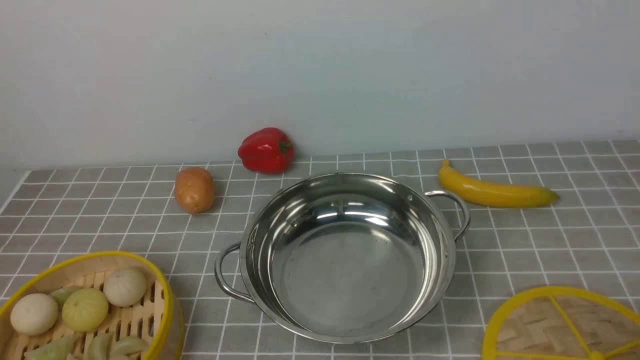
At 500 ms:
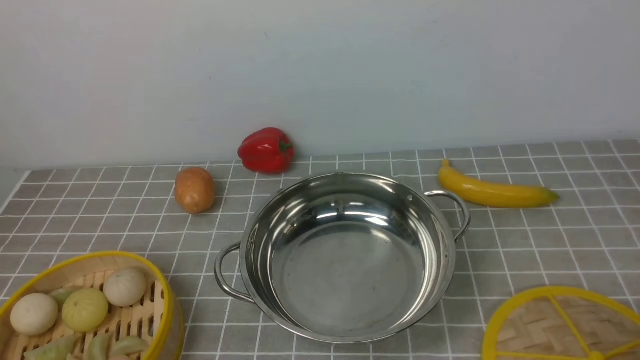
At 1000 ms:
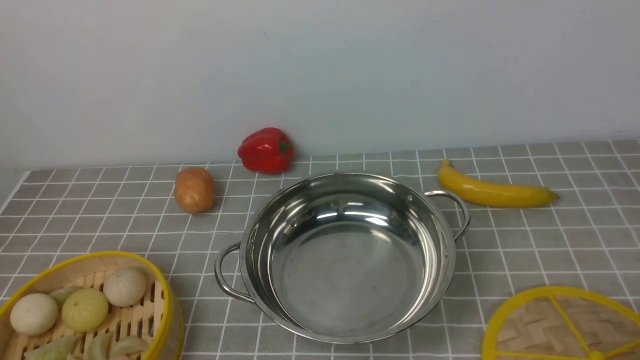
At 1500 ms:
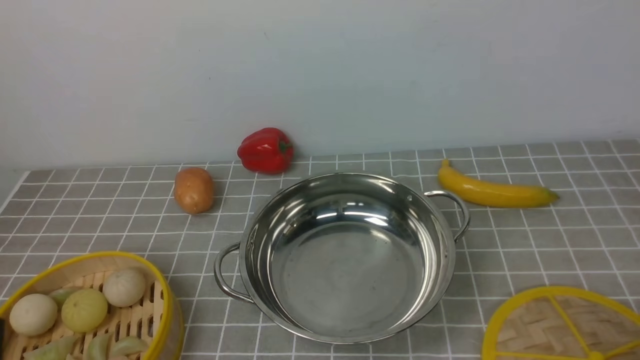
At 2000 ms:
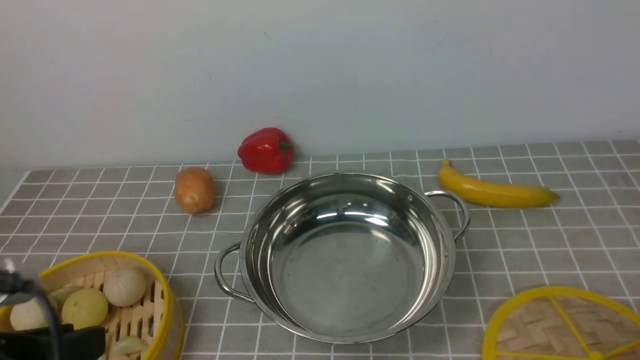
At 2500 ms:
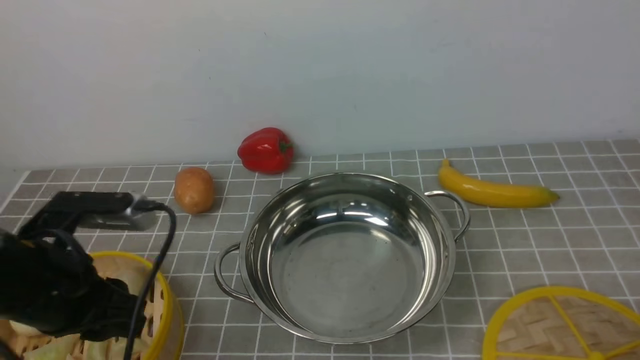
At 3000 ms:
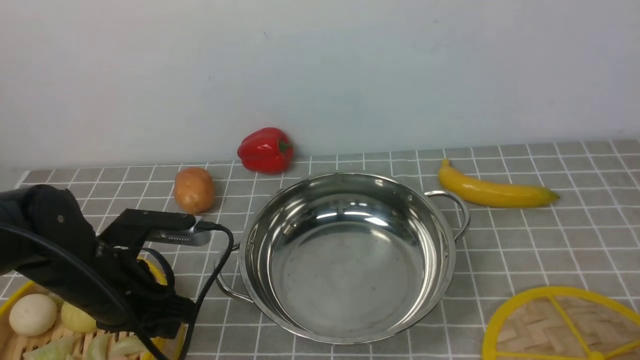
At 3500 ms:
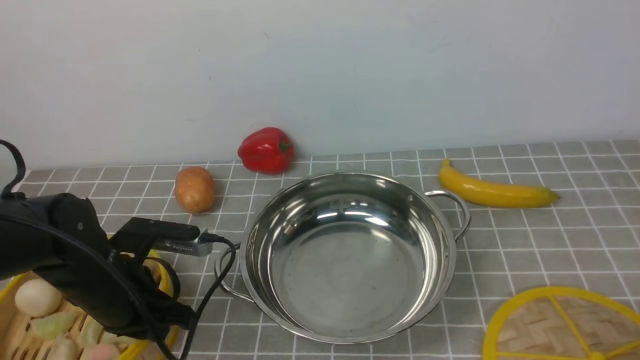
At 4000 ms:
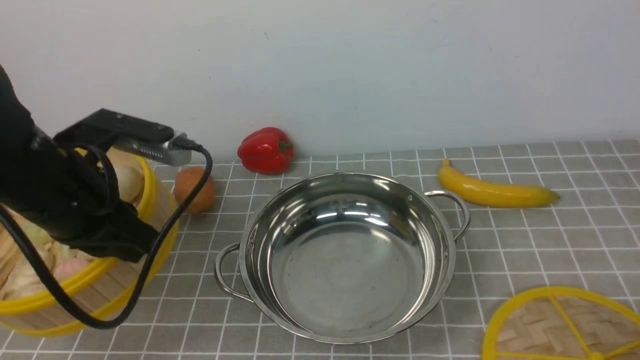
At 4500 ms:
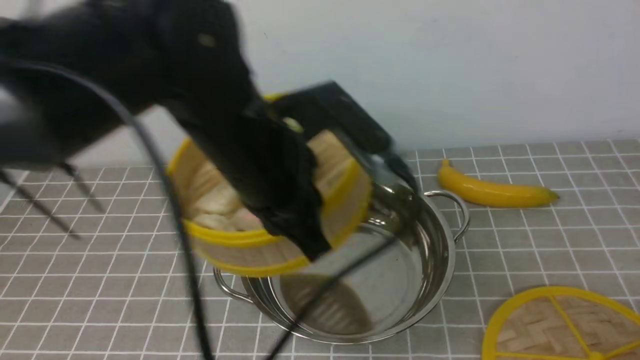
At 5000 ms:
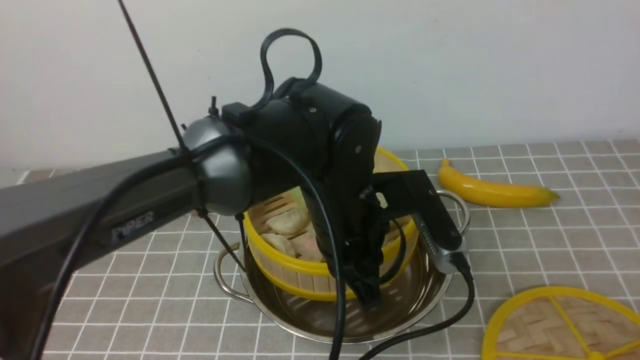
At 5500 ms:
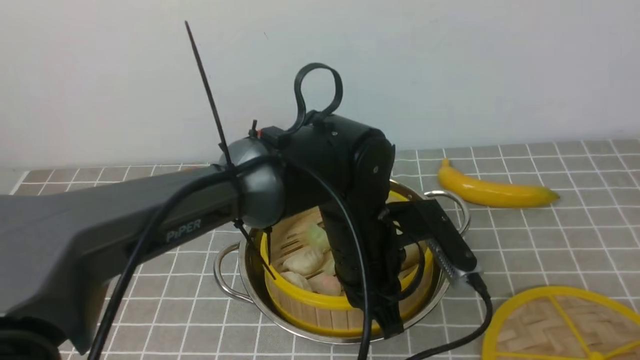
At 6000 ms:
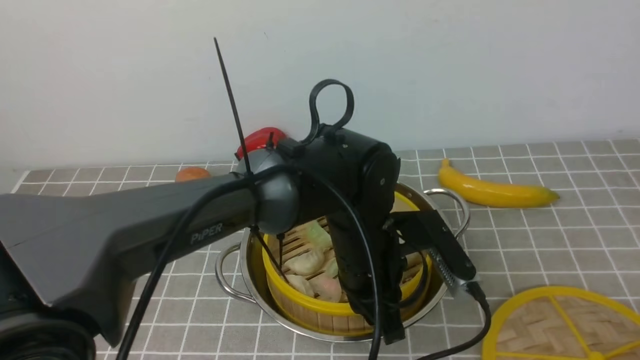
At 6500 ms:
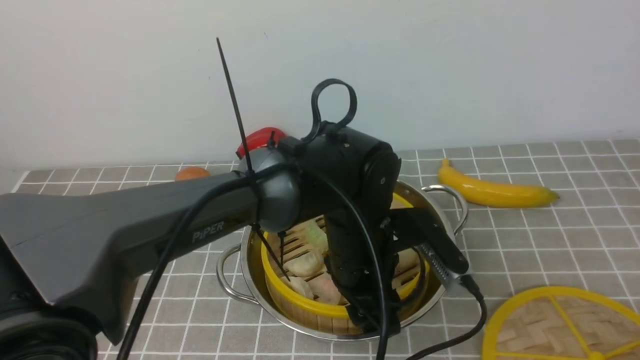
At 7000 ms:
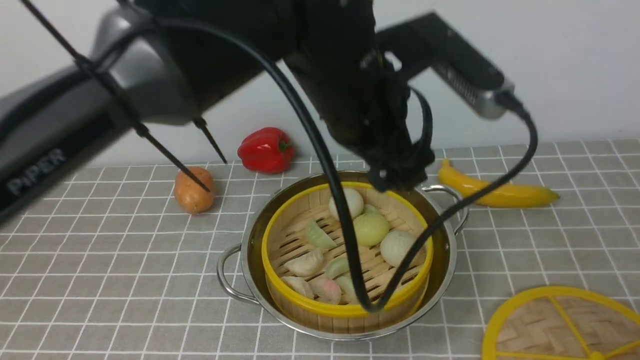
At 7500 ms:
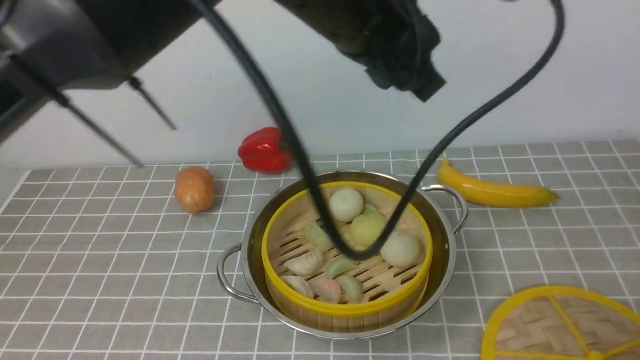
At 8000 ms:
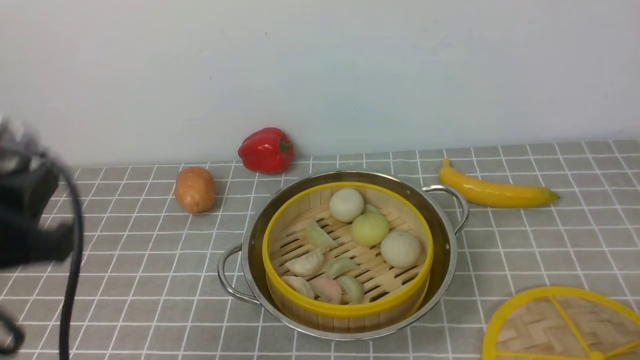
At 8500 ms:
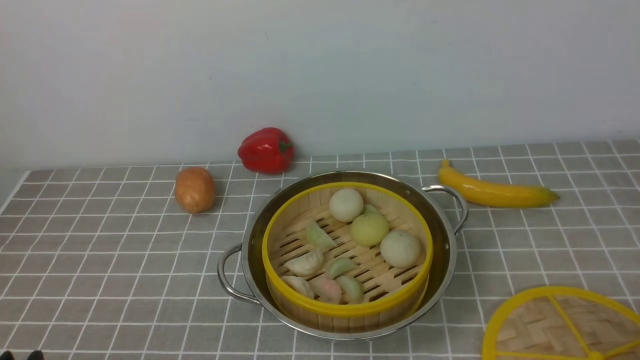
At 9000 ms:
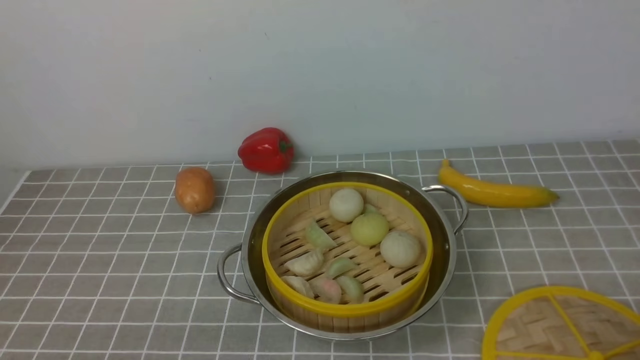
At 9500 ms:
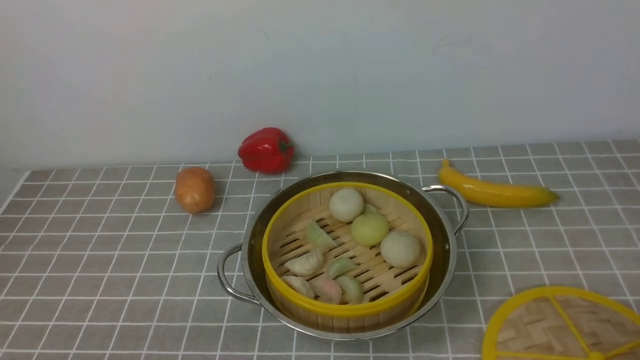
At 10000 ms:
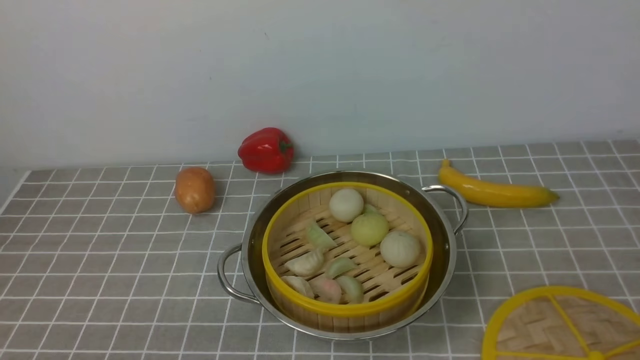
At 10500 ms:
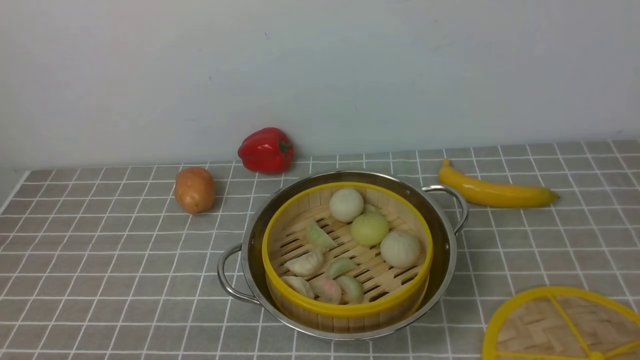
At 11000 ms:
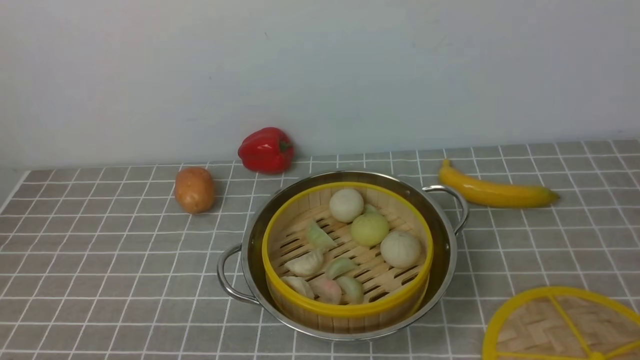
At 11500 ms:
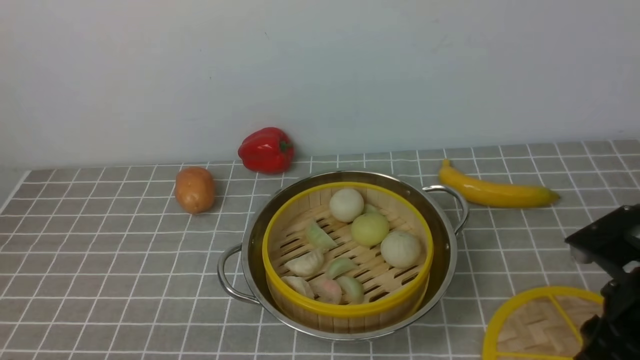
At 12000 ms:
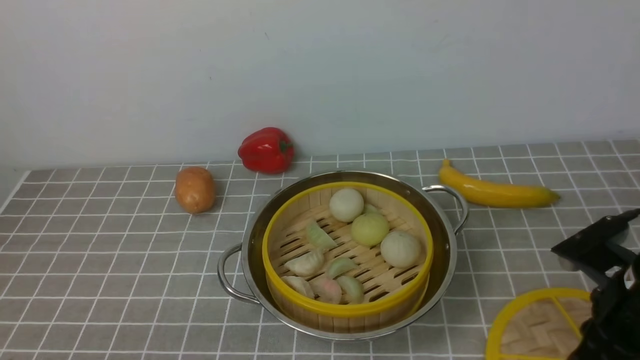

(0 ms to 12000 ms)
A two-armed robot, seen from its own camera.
Task of the whole recording: place the steamer in the pot on the grey tablecloth, and put the lid on the steamer.
Step, 0 ms - 3500 ms: use the left arm to lift the steamer closest to it.
Step, 4000 ms - 6500 ms: use the left arm to put the steamer into the iron steamer pot in the middle.
0 ms - 2000 ms: The left gripper travels upward by some 10 cm.
2000 ms - 4000 ms: The left gripper is displaced forward by roughly 15 cm, and closes up.
4000 ms - 6000 ms: The left gripper shifts approximately 25 cm to the right and downward.
6000 ms - 8000 ms: The left gripper travels to the left, backward and upward by approximately 35 cm, and opens, then closes again.
8000 ms - 10000 ms: The right gripper goes approximately 10 cm upward. Meanwhile the left gripper travels downward and backward by roughly 15 cm.
10000 ms - 12000 ms: The right gripper is displaced forward and downward by approximately 20 cm.

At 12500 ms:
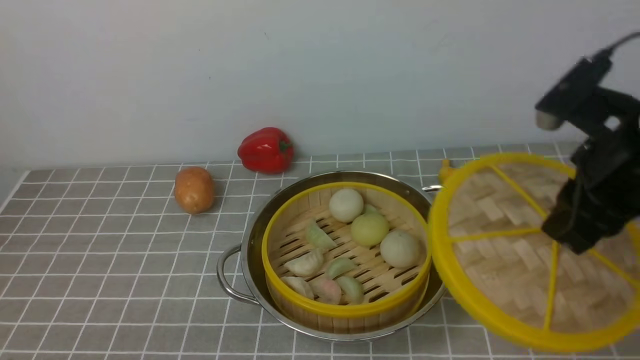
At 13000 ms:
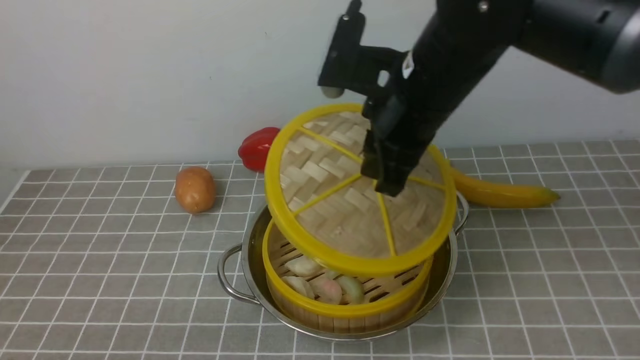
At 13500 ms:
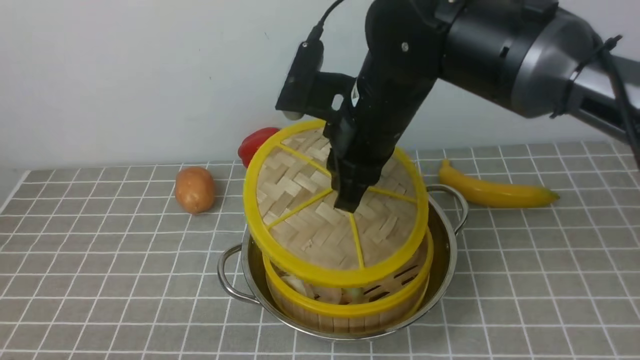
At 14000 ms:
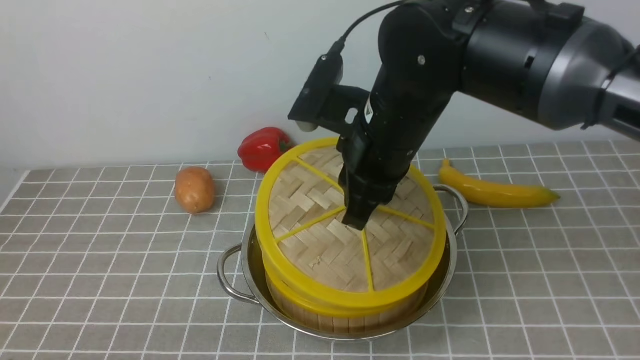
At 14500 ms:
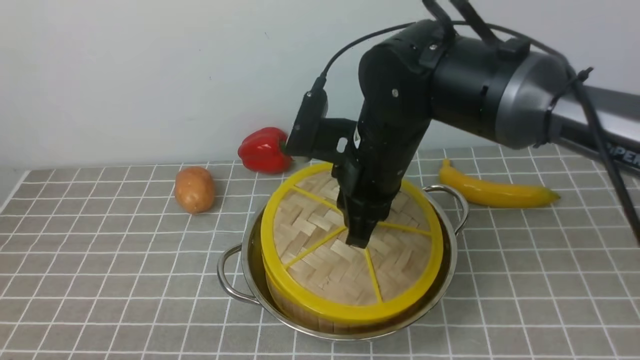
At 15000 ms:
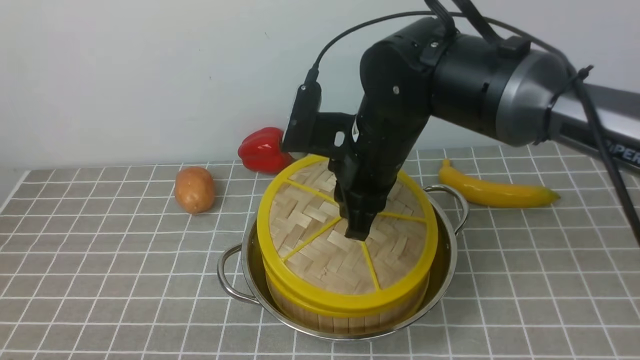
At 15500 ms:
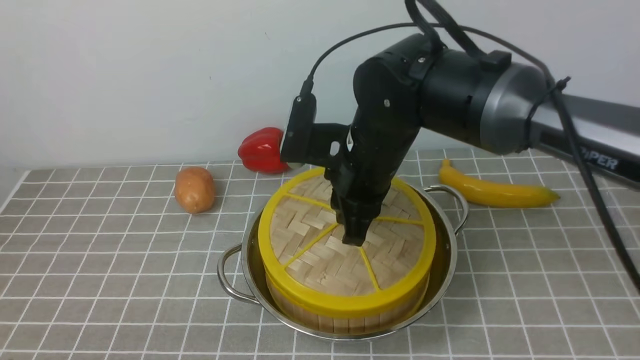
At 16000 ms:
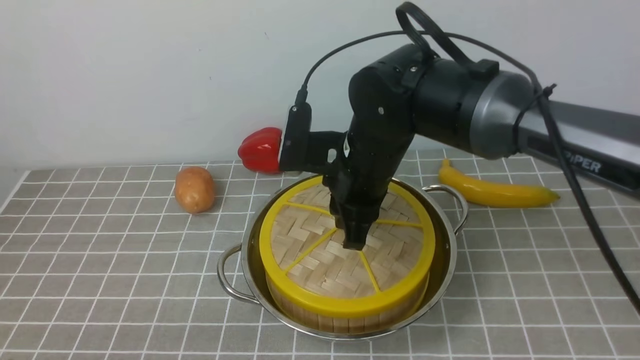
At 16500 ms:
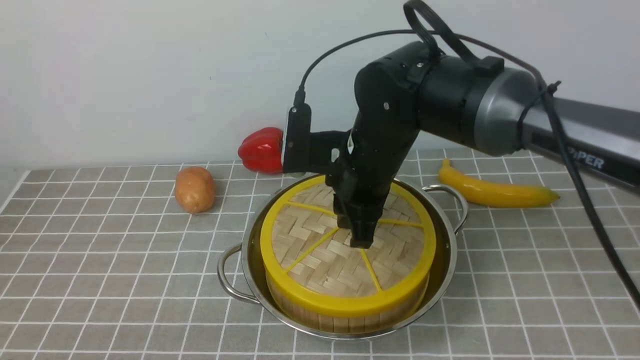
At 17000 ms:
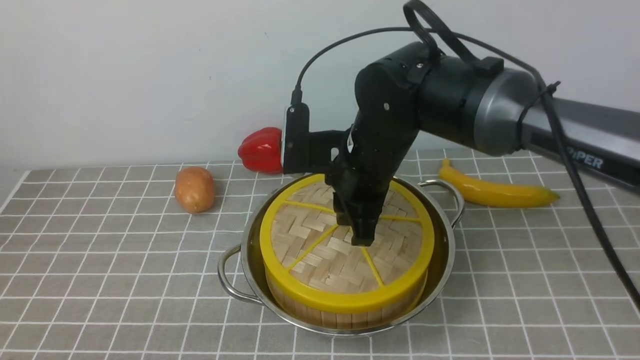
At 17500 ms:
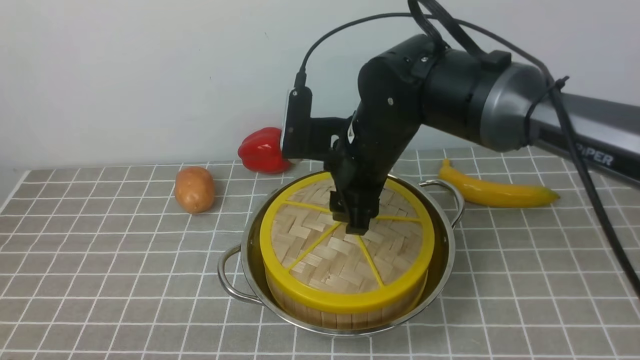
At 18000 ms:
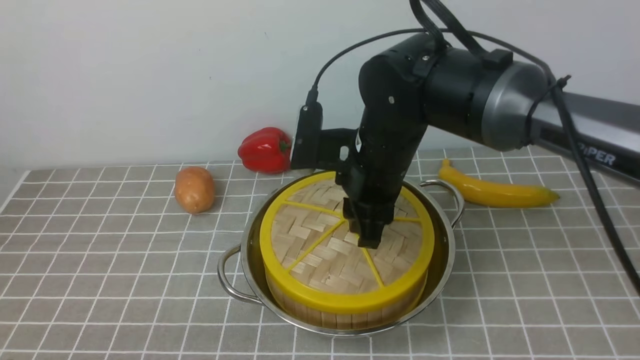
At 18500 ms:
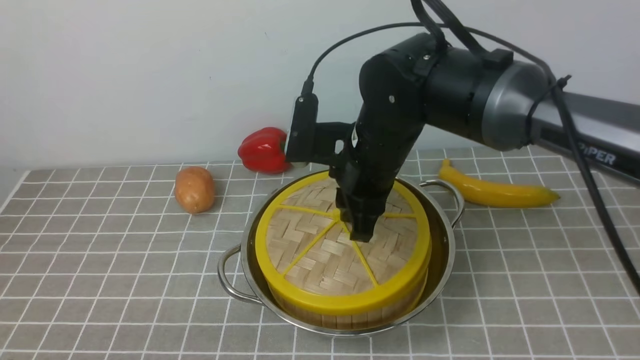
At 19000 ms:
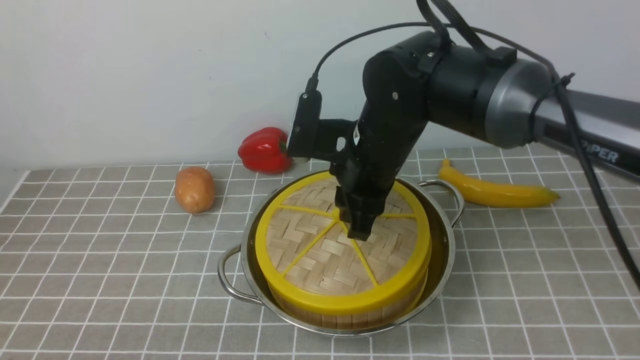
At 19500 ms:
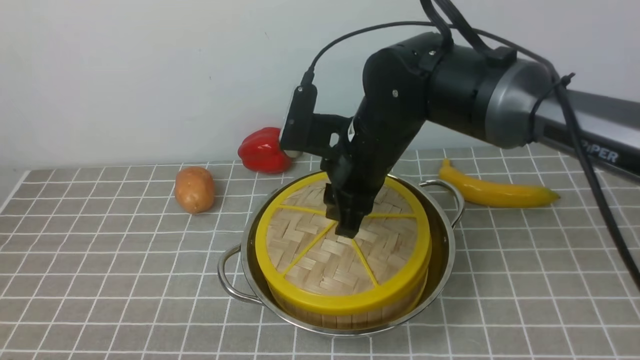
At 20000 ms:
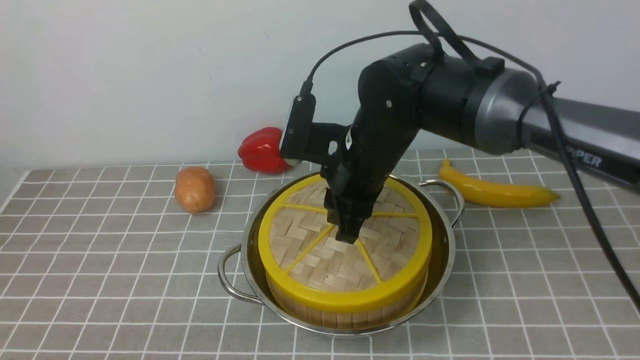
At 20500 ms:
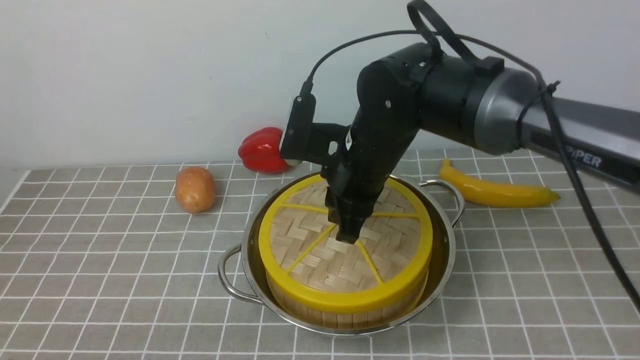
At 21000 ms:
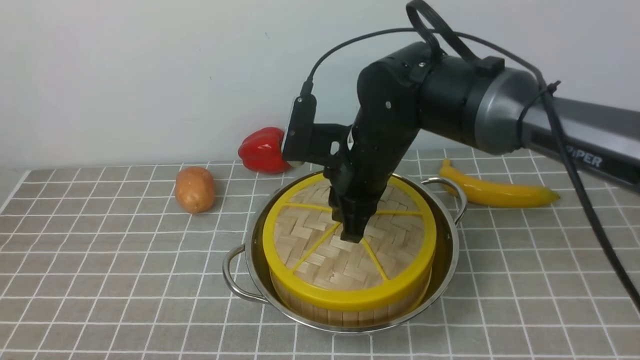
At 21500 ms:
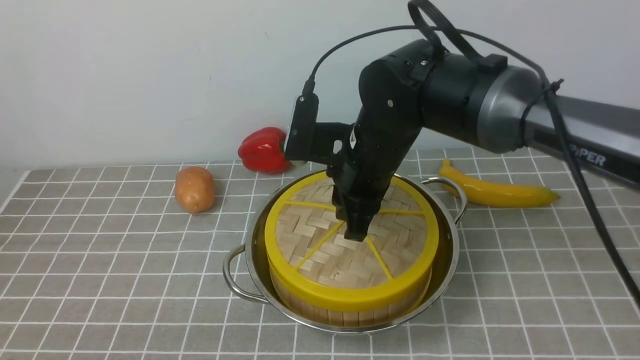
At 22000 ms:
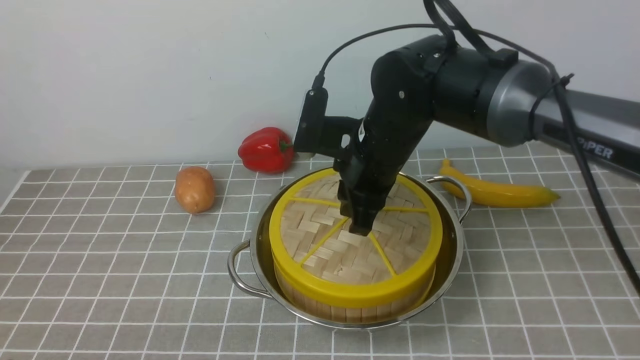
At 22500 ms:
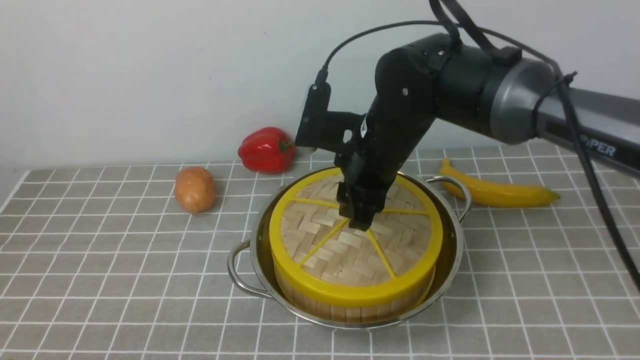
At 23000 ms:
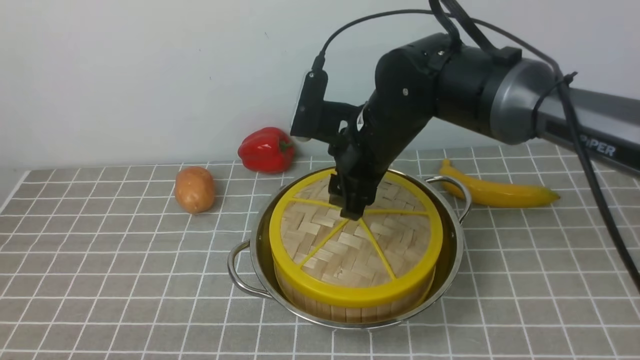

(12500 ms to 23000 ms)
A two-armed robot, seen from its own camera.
Task of the whole recording: place the steamer in the pot on the grey tablecloth, and put the lid on the steamer.
12500 ms - 14500 ms: The right gripper goes about 15 cm to the left.
14500 ms - 16500 ms: The grippers stay close to where they were, moving slightly.
16500 ms - 19000 ms: The right gripper opens and closes again.
19000 ms - 21000 ms: The two grippers keep their place.
21000 ms - 23000 ms: The right gripper opens up.
